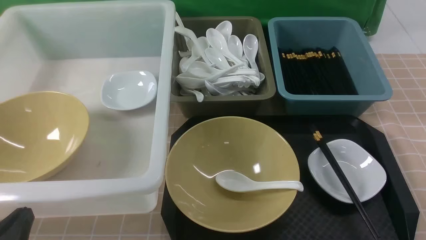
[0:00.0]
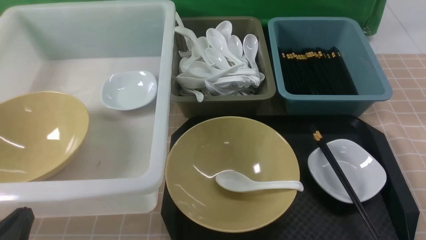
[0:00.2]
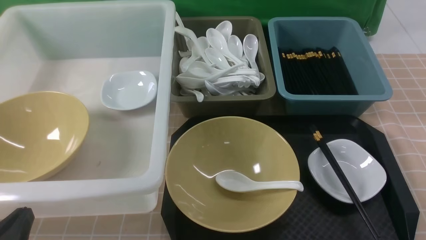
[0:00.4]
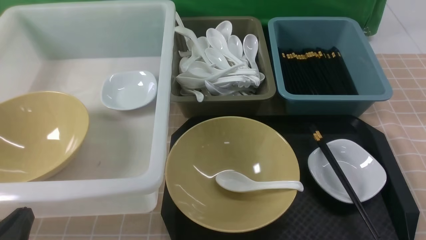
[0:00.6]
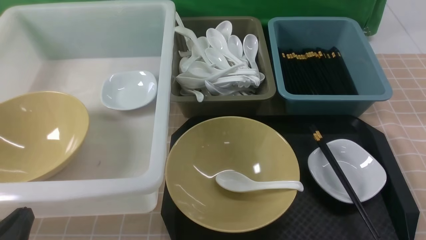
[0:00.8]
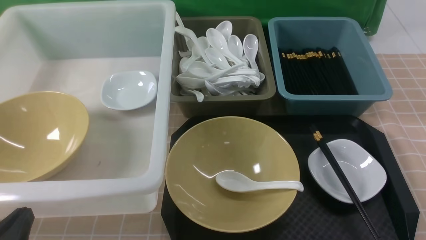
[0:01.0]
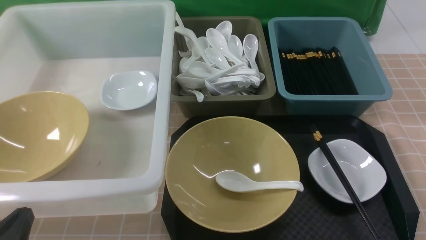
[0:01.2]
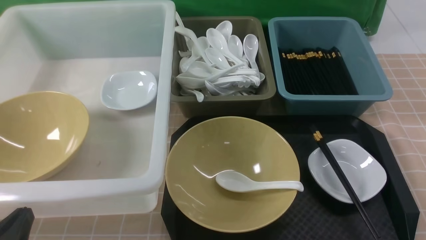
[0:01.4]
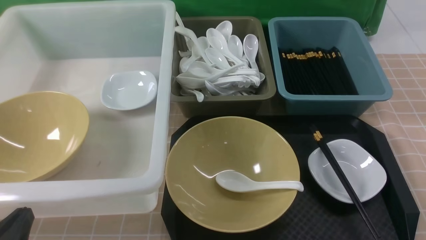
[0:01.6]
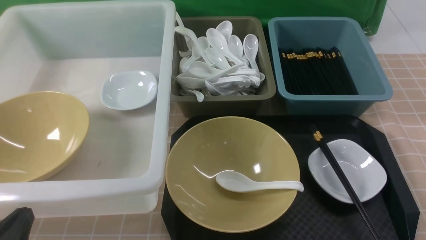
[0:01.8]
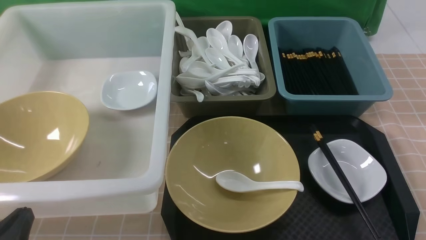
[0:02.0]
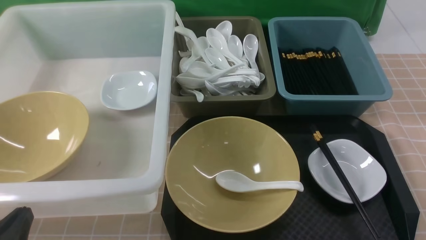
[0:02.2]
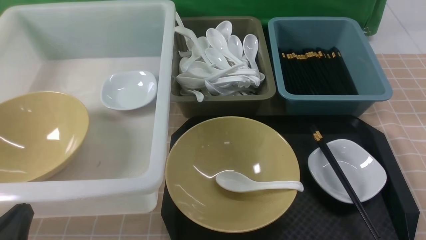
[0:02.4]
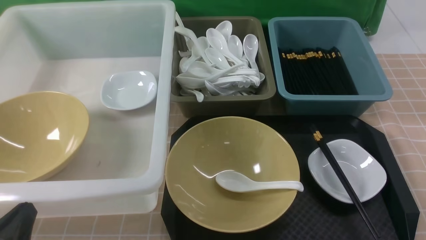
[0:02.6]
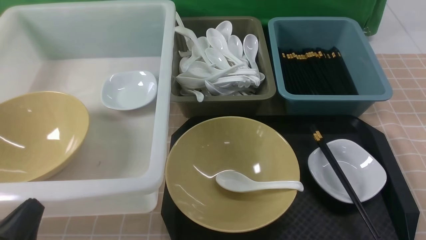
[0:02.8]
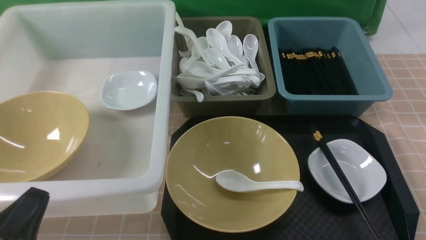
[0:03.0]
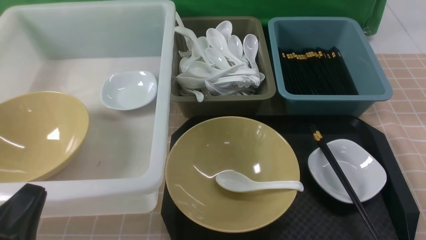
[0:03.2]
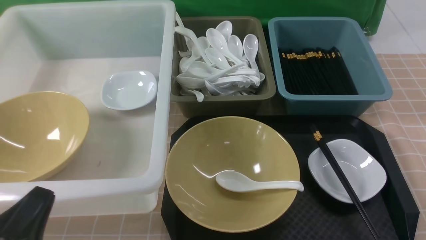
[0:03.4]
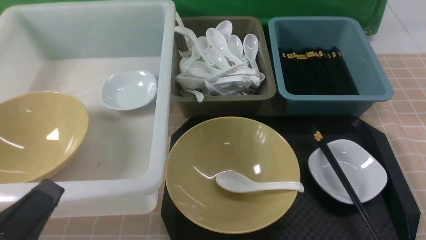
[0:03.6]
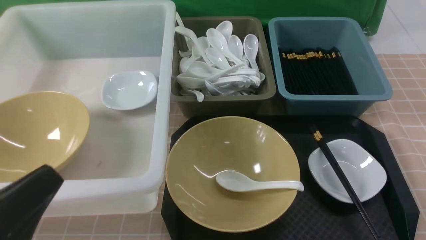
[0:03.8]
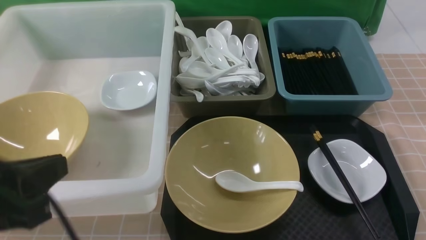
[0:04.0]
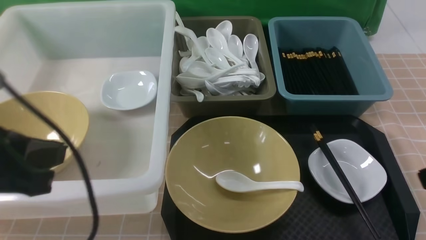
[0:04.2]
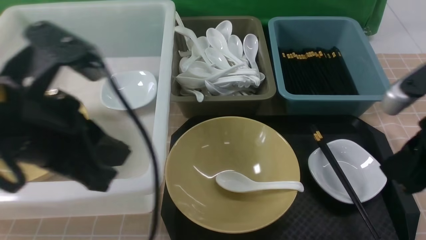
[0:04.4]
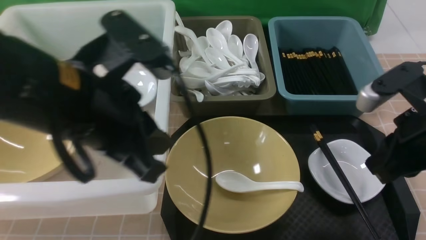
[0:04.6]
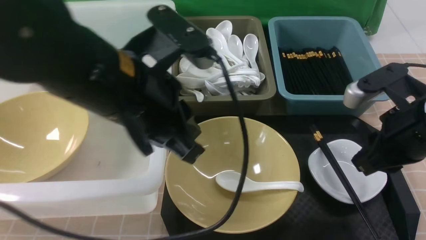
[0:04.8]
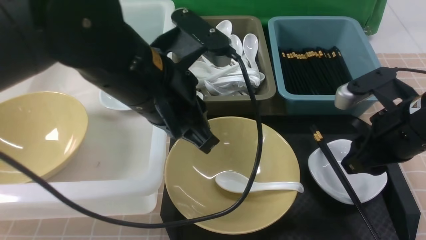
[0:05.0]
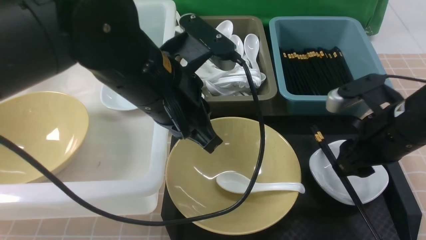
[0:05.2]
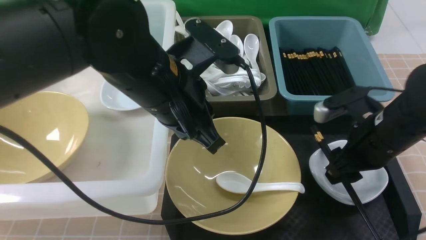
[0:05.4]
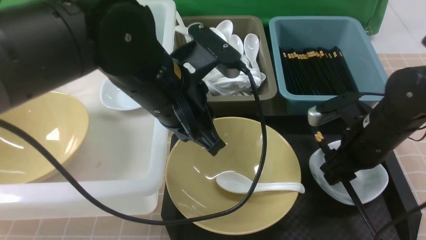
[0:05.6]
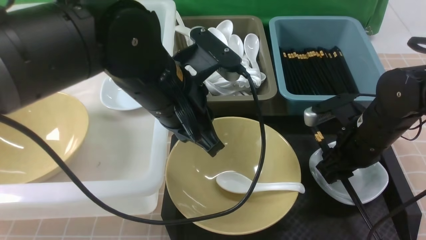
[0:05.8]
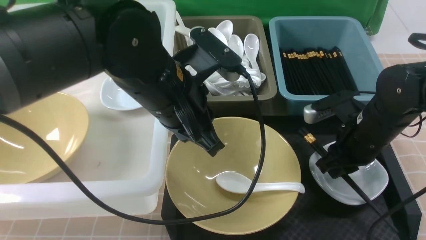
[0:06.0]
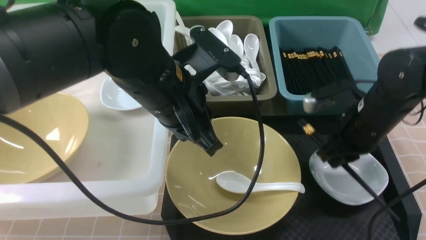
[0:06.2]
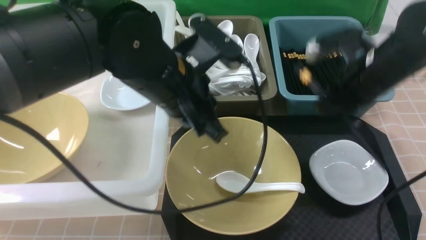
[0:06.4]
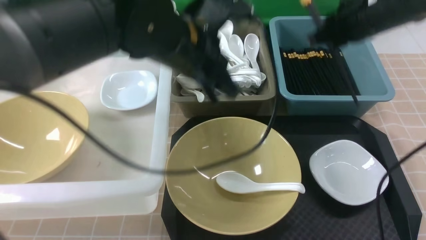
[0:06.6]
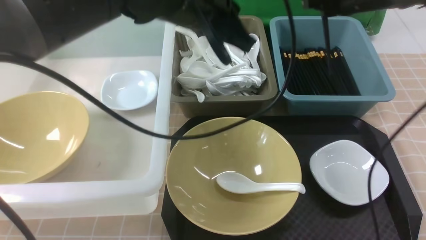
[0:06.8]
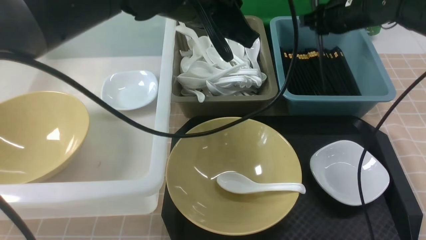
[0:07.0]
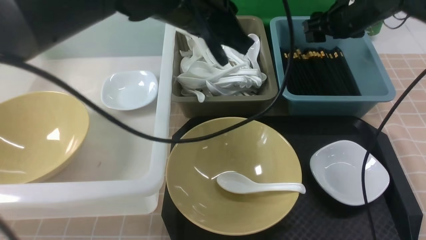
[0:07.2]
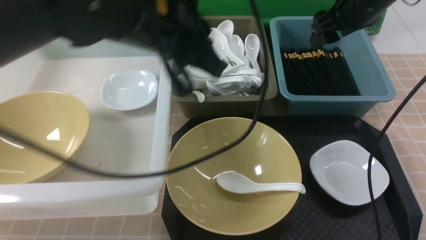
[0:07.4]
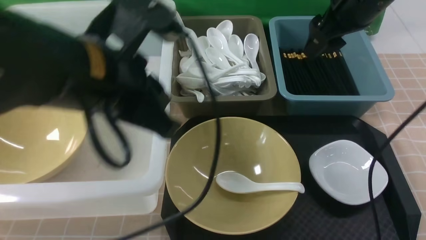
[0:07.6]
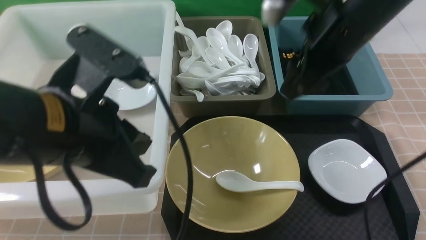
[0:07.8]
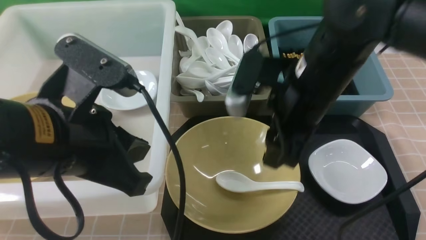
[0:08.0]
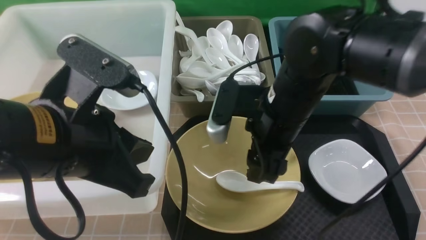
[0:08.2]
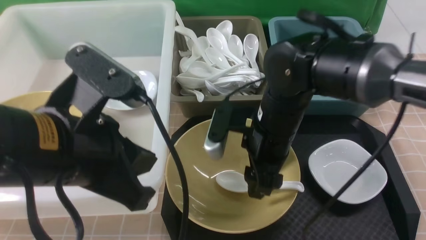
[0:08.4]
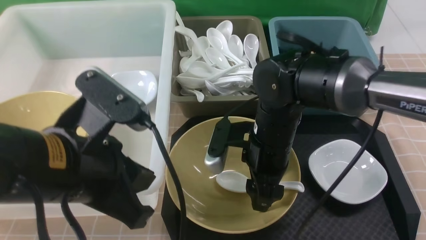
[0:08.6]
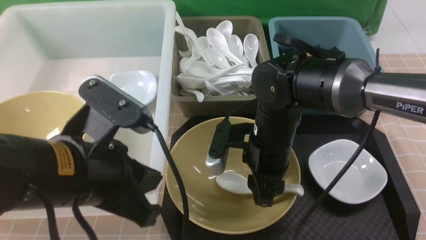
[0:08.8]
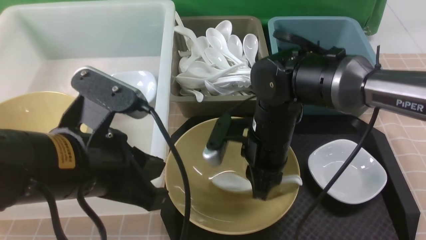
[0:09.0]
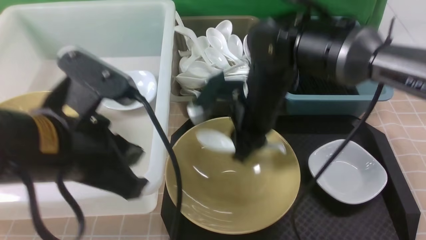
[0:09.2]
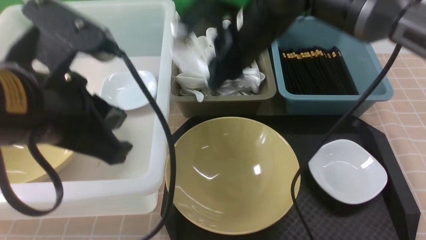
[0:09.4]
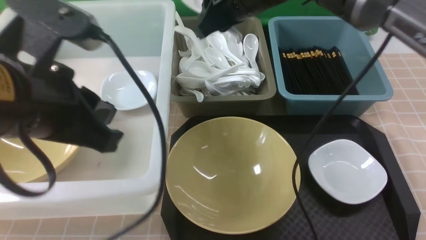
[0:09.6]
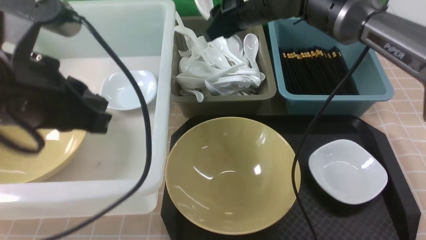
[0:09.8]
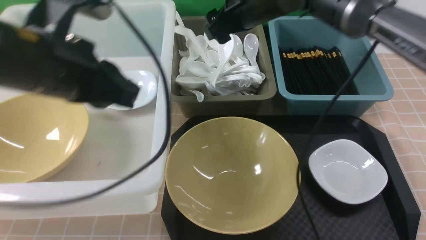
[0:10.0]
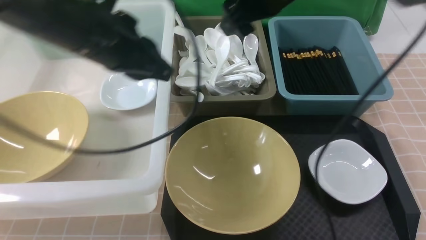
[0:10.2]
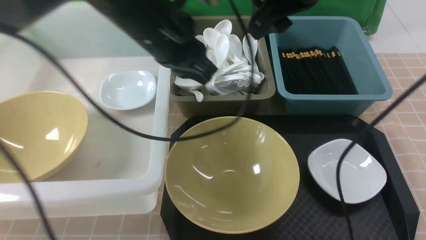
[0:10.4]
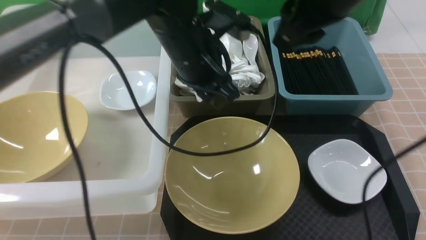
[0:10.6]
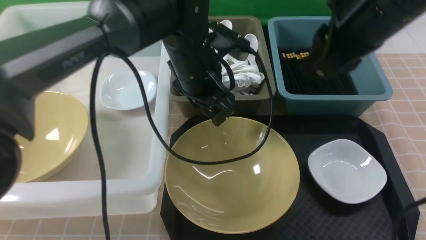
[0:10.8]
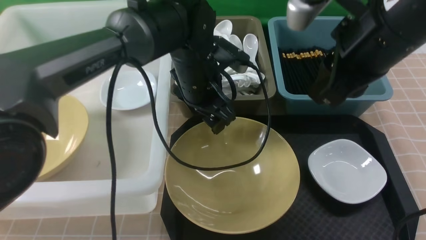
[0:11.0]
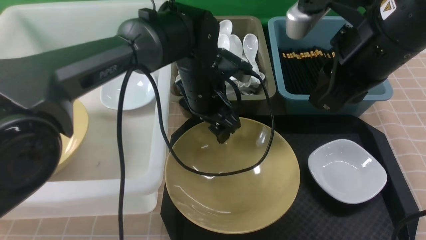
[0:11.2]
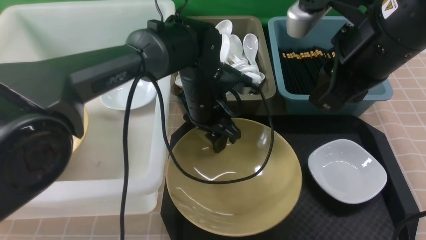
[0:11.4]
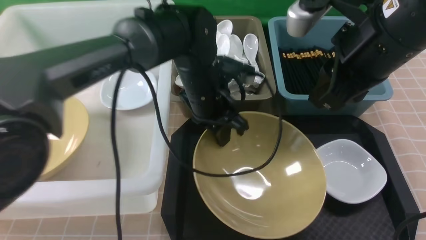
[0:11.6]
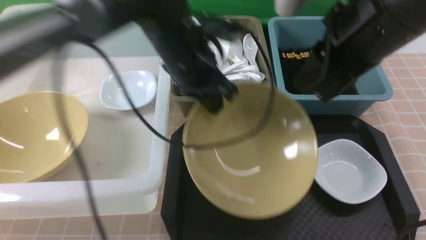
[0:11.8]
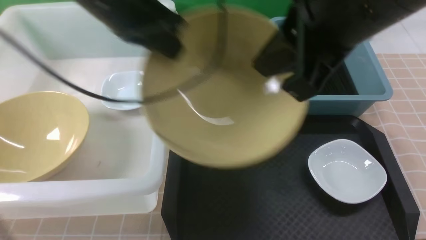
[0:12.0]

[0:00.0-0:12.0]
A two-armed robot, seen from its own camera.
Task of the whole recording: on brown table put chopsticks spoon bowls plates into blue grey white boxes.
Step, 0.0 to 6.2 s: use the right arm to grab the chopsticks.
Step, 6.4 to 7.6 s: use the right arm to put the chopsticks into the small storage box on the right.
Step, 7.8 to 9.0 s: use the right arm to grab the soup spoon in the middle.
Step, 9.2 to 10.0 s: use the right arm to put the soup spoon into the small storage box in the middle.
Step, 10.2 to 11.4 s: use the left arm to grab the yellow noodle bowl on the left.
0.0 to 1.6 s: Both grippers stay put.
3.0 to 4.4 s: The right gripper goes some 20 cm upward, forward and to the left, and closes. The left gripper moves upward, forward and to the right, about 20 cm.
4.4 to 6.0 s: The left gripper shifts some 15 cm to the right and forward. Meanwhile the right gripper goes roughly 15 cm forward and downward, and opens, then closes once more.
6.0 to 7.6 s: The right gripper shifts approximately 15 cm upward, and opens; the left gripper travels to the left and backward by roughly 5 cm.
7.6 to 9.0 s: The left gripper shifts by about 5 cm. The right gripper moves downward and to the left, about 20 cm, and closes.
9.0 to 10.4 s: The right gripper travels upward by some 20 cm, and opens its fingers, while the left gripper is displaced forward by some 15 cm.
10.4 to 12.0 s: The right gripper is displaced backward by approximately 15 cm, and closes. The left gripper travels to the left and upward by approximately 10 cm, and opens and closes again.

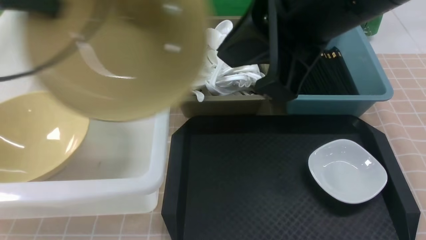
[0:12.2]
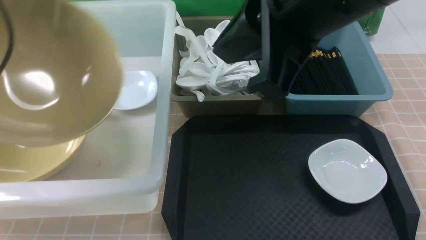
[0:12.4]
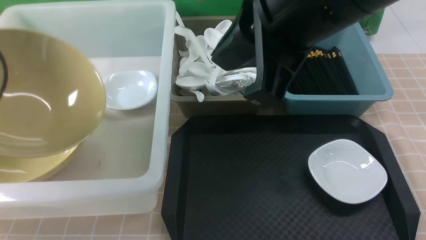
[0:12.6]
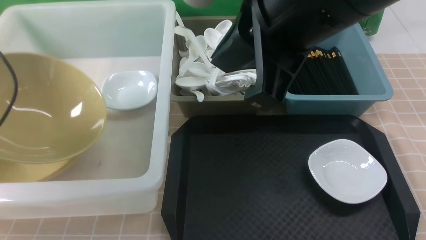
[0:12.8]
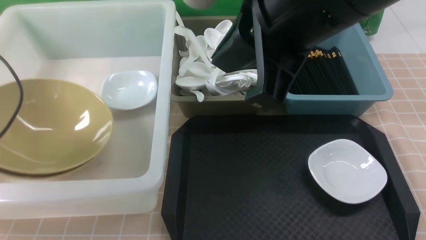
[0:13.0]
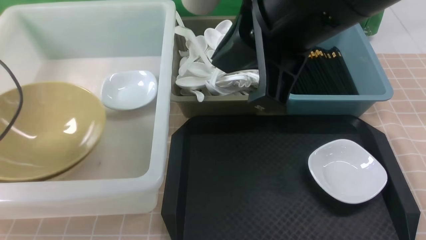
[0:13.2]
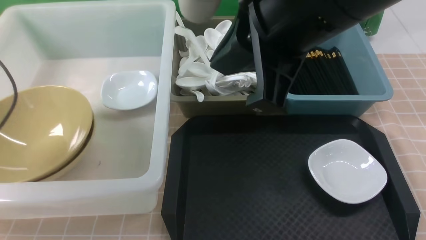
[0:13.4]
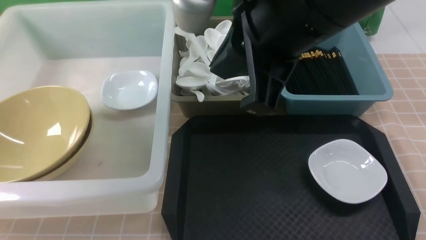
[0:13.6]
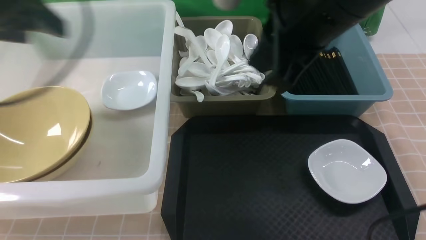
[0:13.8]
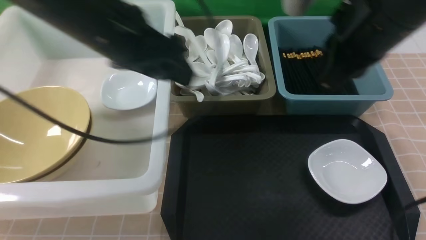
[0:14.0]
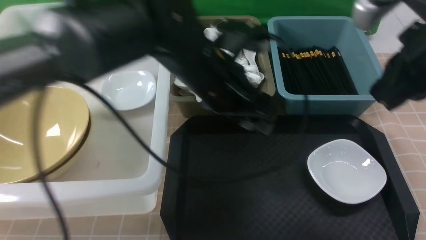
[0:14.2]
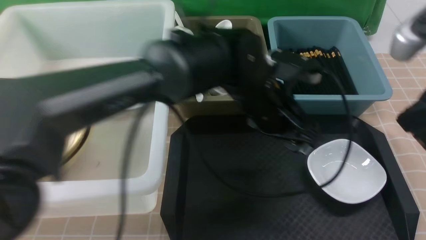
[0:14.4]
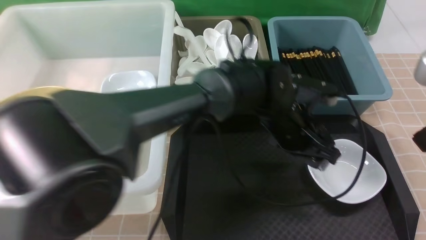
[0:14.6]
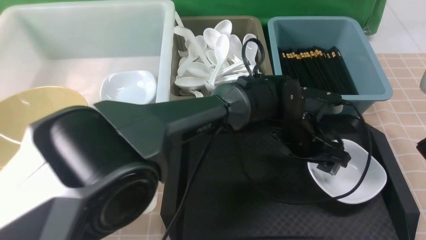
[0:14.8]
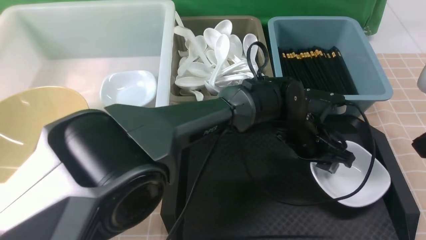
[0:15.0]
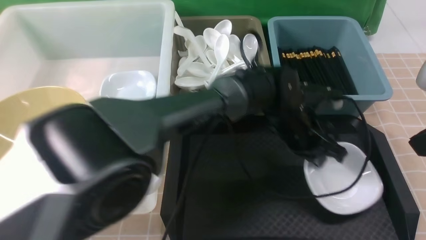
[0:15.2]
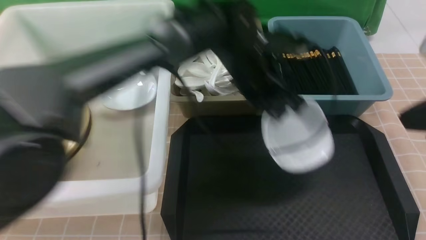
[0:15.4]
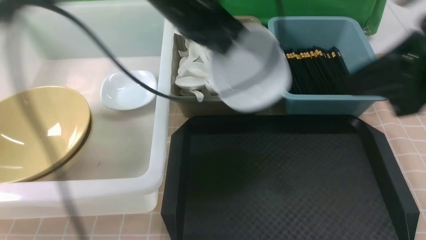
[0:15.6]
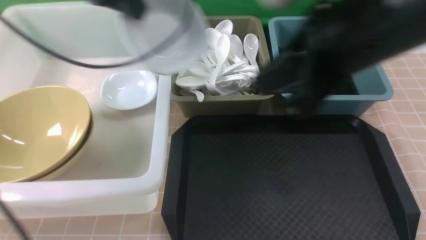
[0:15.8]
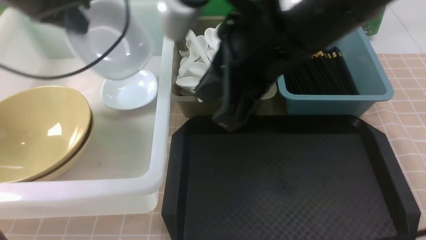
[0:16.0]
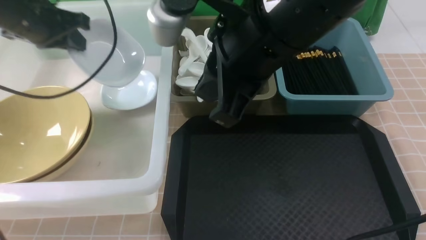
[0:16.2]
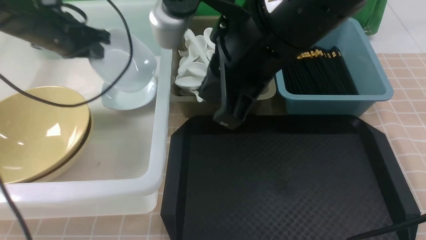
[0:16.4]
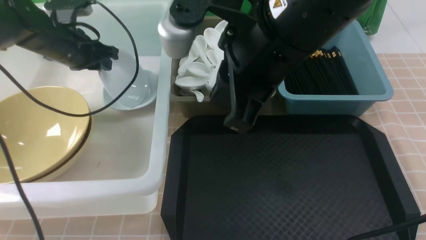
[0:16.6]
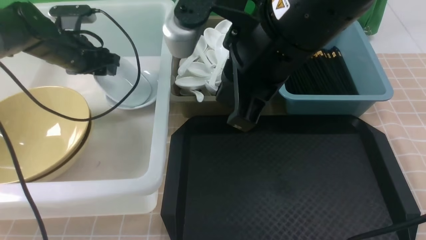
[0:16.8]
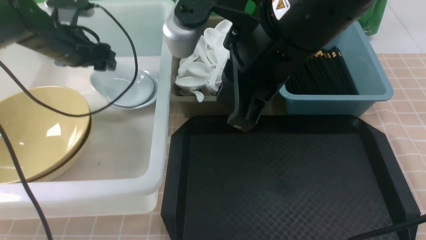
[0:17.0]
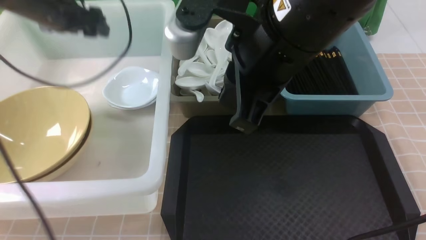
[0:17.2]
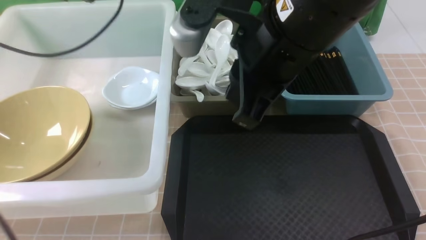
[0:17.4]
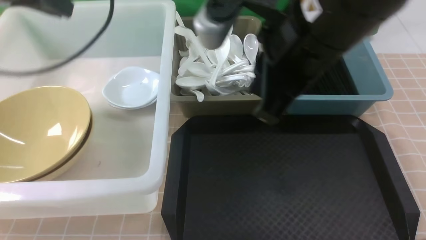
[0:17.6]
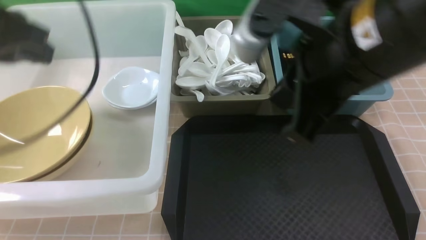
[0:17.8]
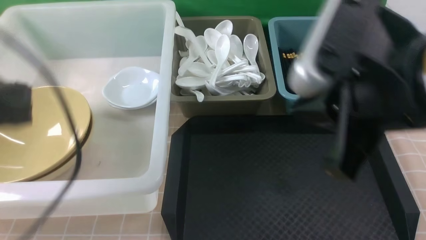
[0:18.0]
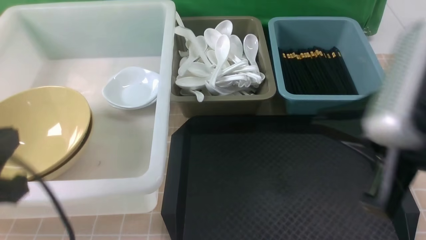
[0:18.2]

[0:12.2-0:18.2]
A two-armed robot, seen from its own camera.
Task of the whole recording: on brown table put chopsticks spoon bowls plates into blue grey white boxes.
Step, 12.2 to 13.2 s: use the left arm to put the noodle bowl into the large storage box on the left.
Step, 13.4 to 15.0 s: use the left arm to grab the plate.
Step, 15.2 to 17.0 s: use the left arm to put the plate into the large storage box on the left.
12.2 to 13.8 s: The left gripper travels to the left and back again, approximately 15 cm each way, and opens. Meanwhile the right gripper goes about 5 cm forward.
13.8 to 15.2 s: The right gripper travels to the right and backward by some 15 cm. The left gripper heads to the right and downward, covering some 35 cm, and closes up.
15.2 to 16.6 s: The left gripper moves to the left, some 35 cm. The right gripper moves to the left, about 20 cm.
16.6 to 18.2 s: The right gripper goes some 15 cm to the right and backward. Meanwhile the left gripper is displaced backward by some 35 cm, and opens and closes again.
